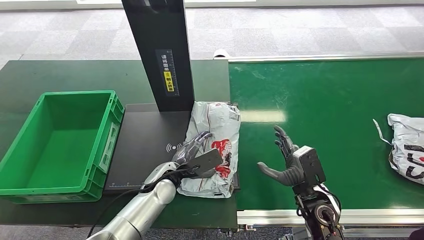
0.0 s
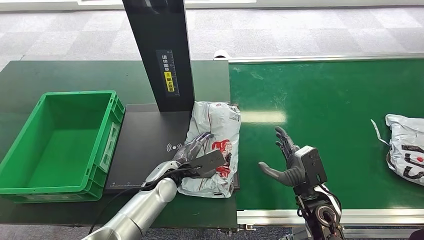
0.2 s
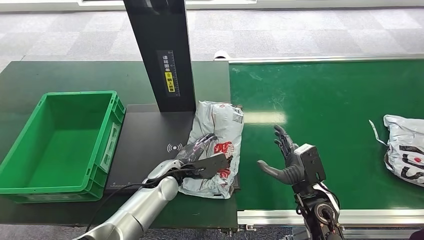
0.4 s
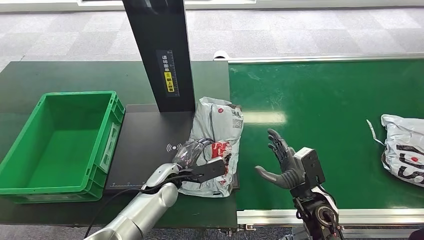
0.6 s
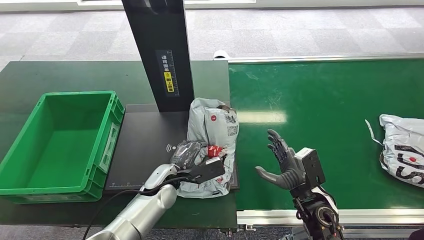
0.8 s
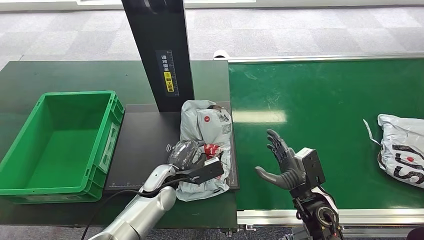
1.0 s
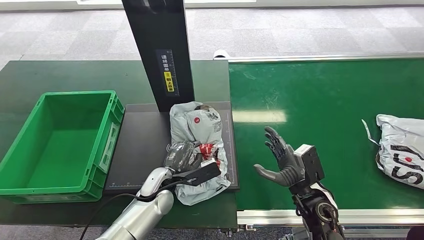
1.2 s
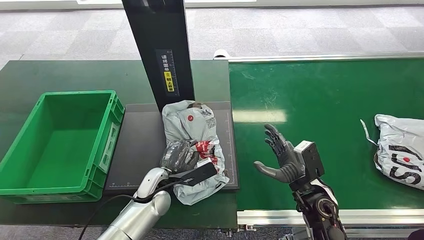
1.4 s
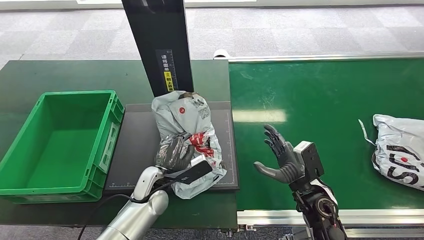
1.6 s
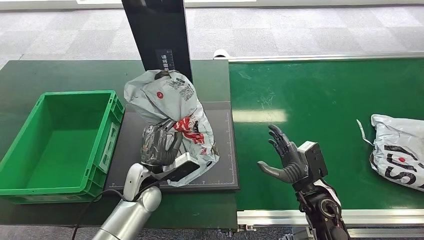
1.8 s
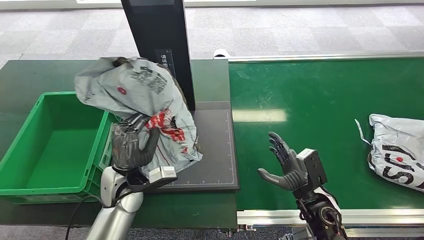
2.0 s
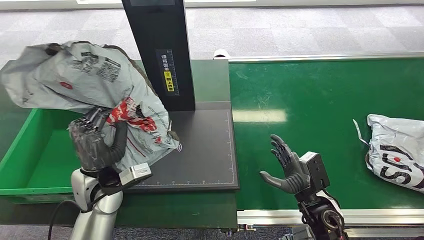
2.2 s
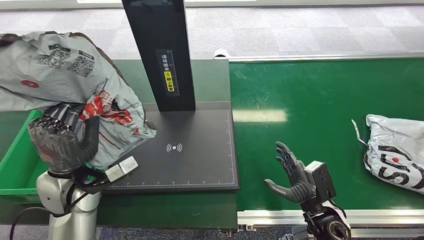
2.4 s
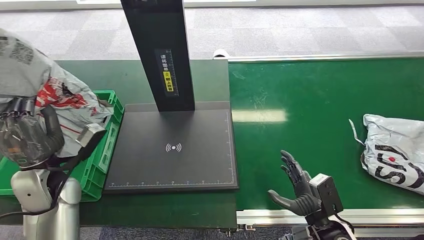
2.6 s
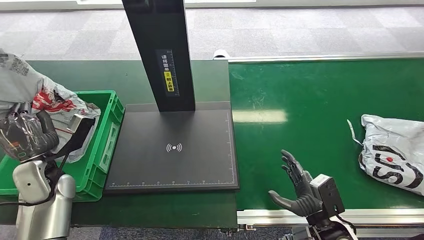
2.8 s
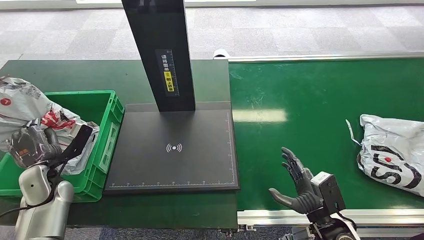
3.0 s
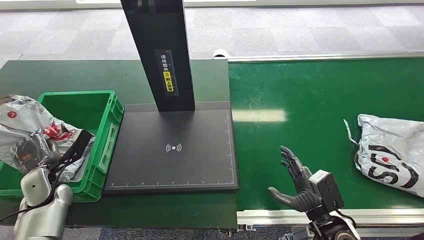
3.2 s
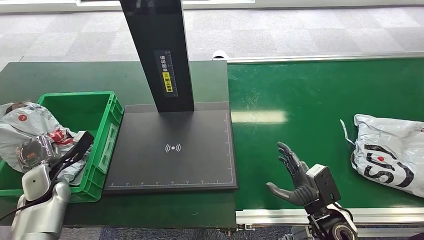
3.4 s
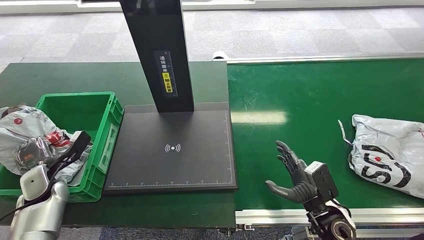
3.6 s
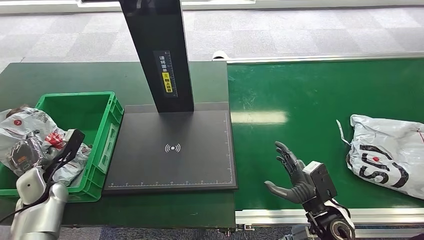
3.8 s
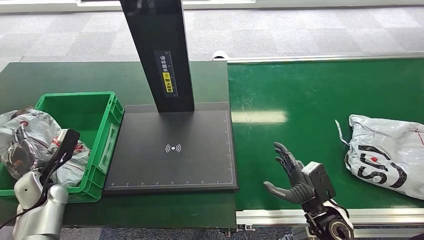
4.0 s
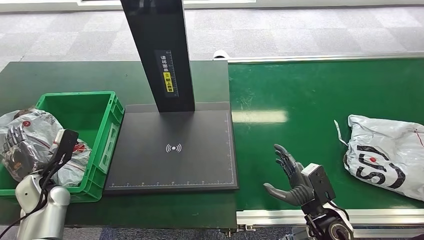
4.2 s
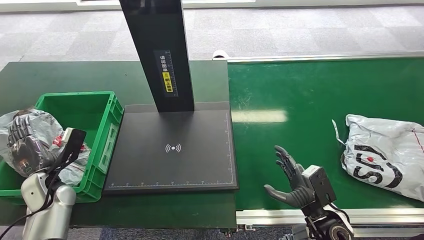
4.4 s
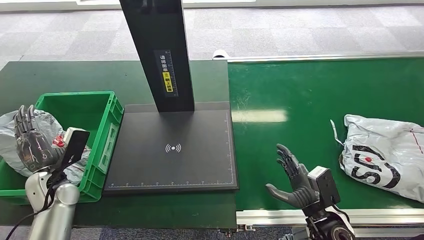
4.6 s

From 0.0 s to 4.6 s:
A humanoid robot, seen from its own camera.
Step, from 0.0 s to 1.8 s: Pick up the package from the inbound machine.
Step, from 2.0 s to 4.6 s: Place the package into the parcel locker.
